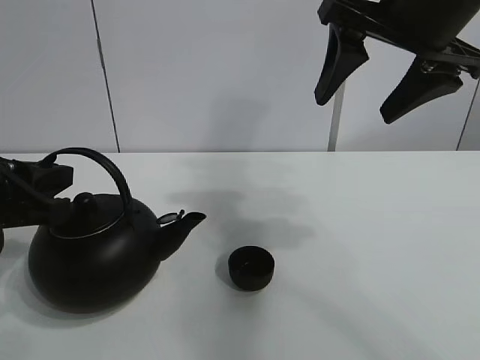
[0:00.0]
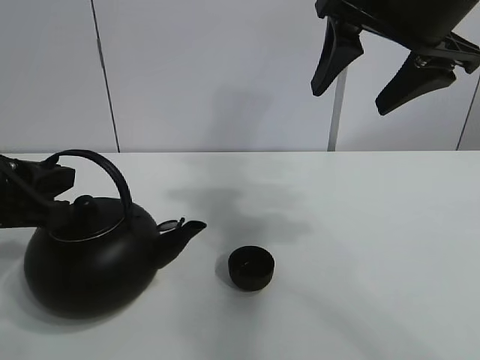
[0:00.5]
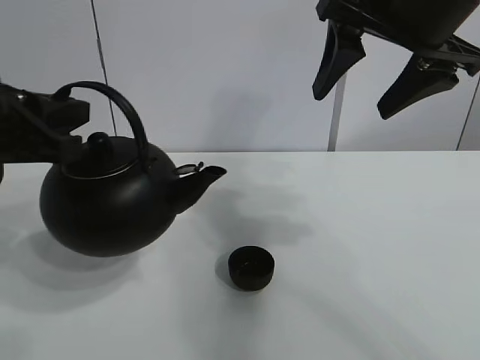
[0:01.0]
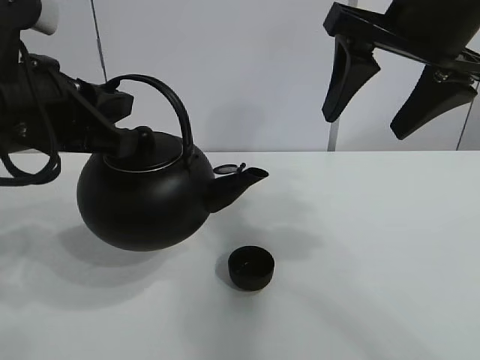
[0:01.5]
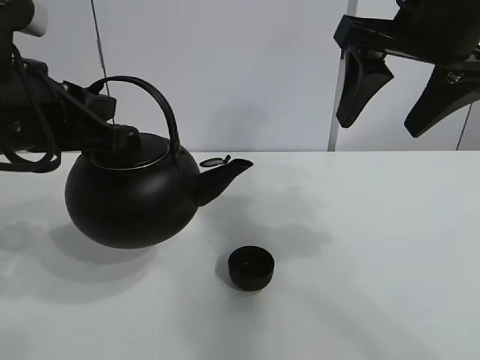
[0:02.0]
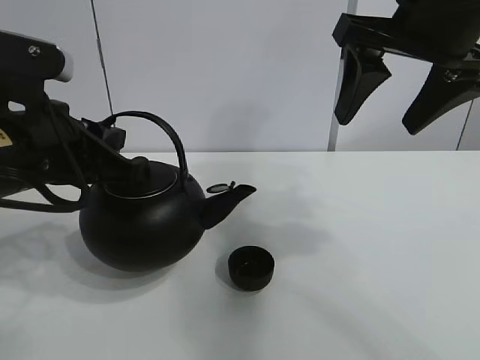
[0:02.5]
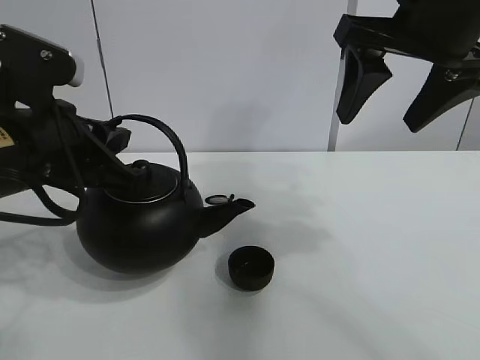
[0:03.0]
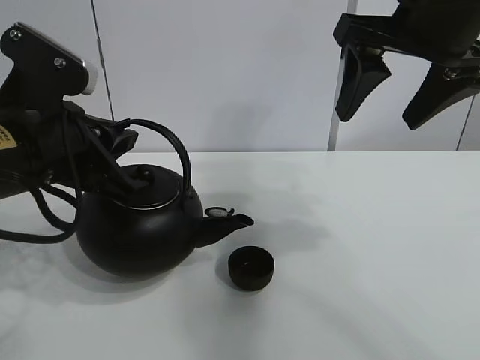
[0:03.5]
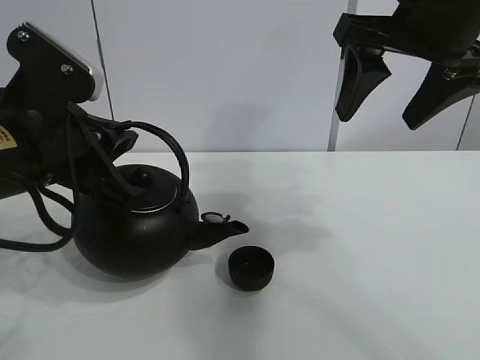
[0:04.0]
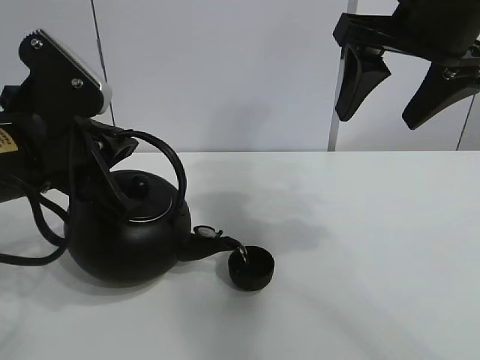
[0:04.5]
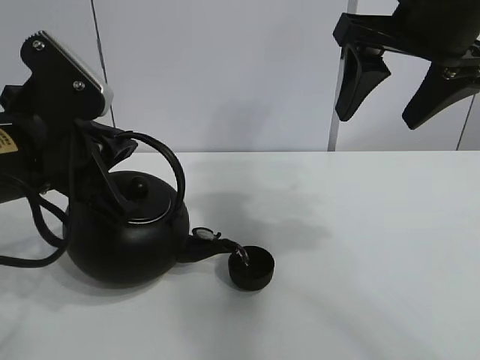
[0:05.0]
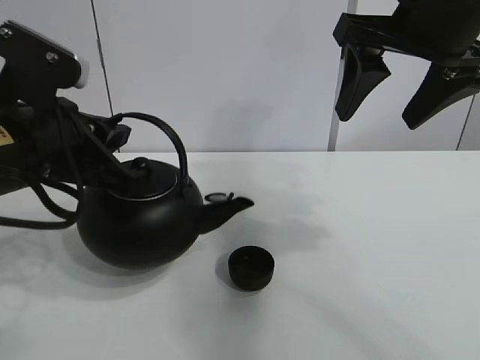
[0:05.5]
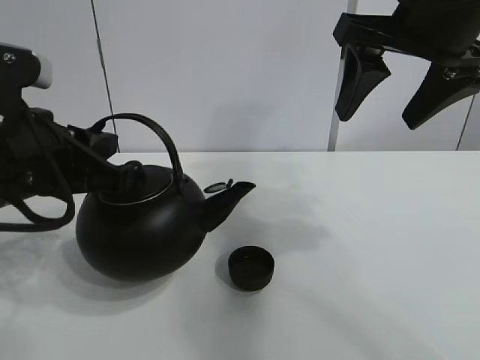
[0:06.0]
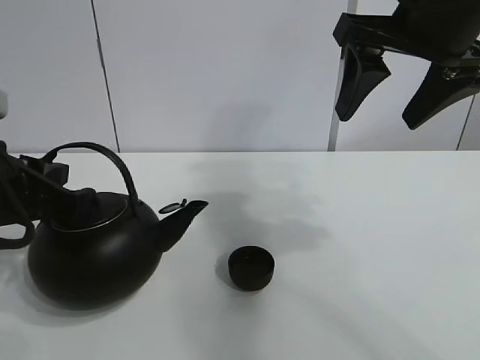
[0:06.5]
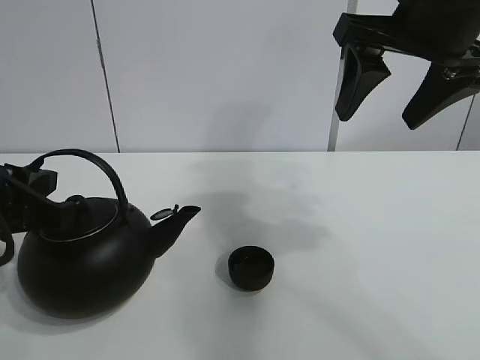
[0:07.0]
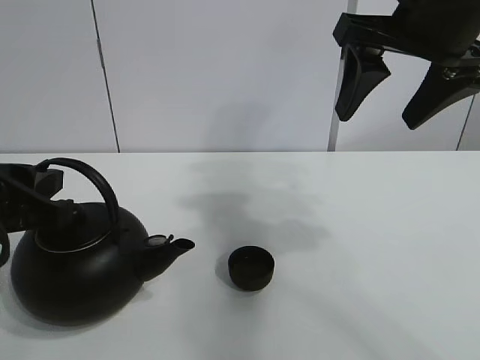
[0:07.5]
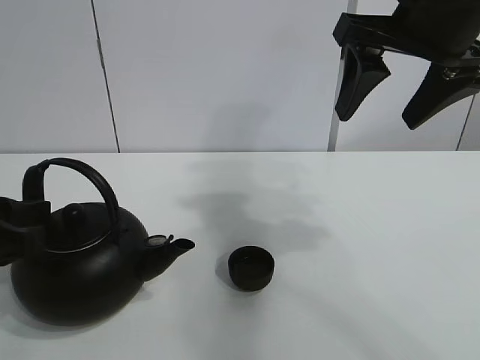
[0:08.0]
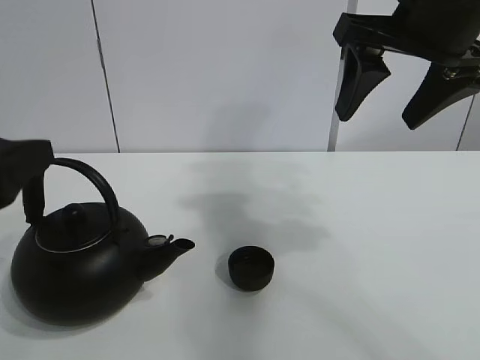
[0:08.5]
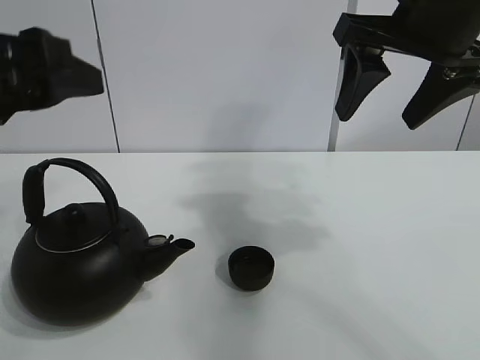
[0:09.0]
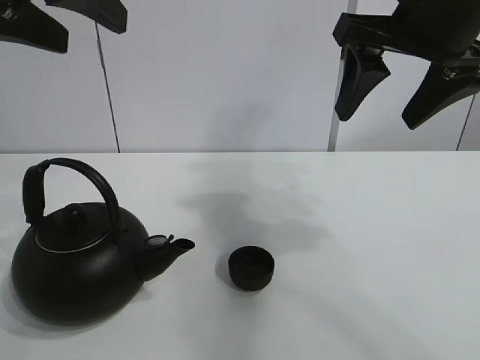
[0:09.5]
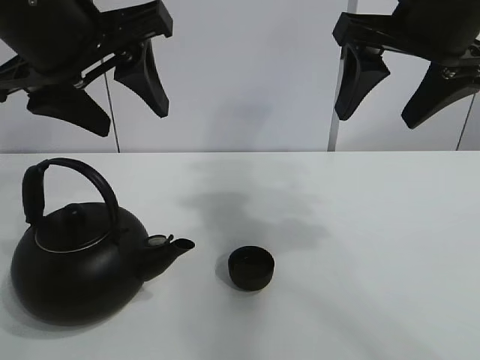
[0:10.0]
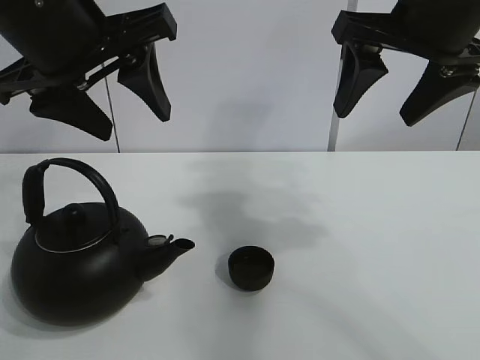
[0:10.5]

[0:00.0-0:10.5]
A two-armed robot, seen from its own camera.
Task of the whole recording: pour tea into the teacup.
Step, 0:00.5 to 0:05.0: Pour tea into the teacup with the left gripper.
0:00.0 to 0:02.0: The left gripper moves upward and to the right, about 10 cm.
0:02.0 to 0:04.0: The grippers make only small movements.
0:04.0 to 0:06.5: The left gripper ends up about 5 cm from where it was.
0:06.5 to 0:08.5: The left gripper heads backward, covering about 5 cm, and opens.
0:08.5 to 0:10.5: The left gripper travels upward, forward and to the right by approximately 20 cm.
